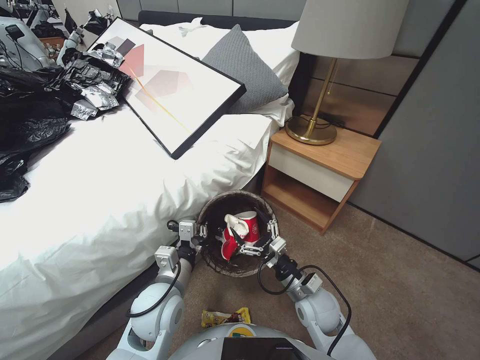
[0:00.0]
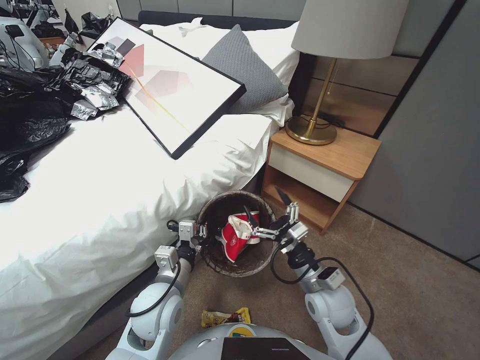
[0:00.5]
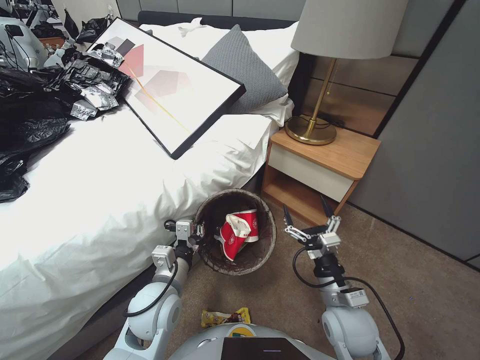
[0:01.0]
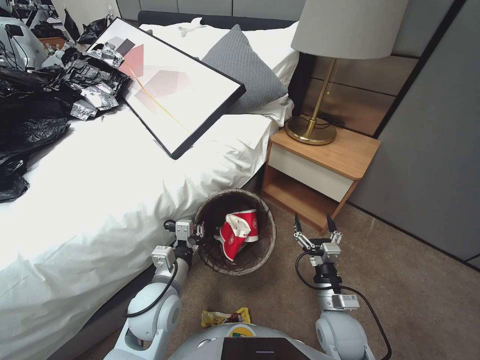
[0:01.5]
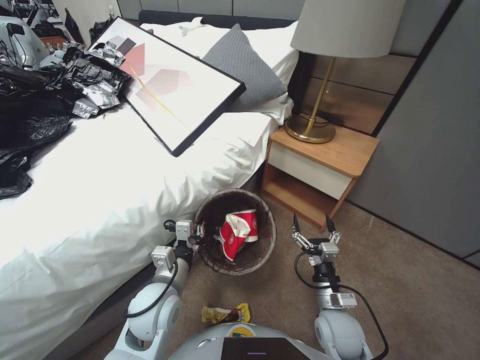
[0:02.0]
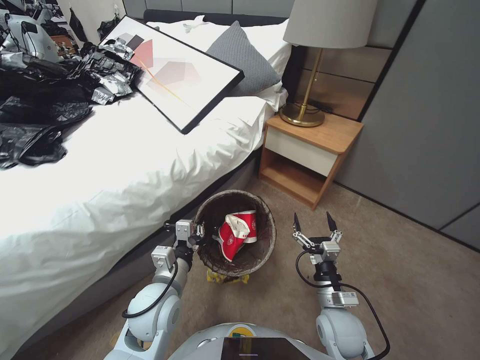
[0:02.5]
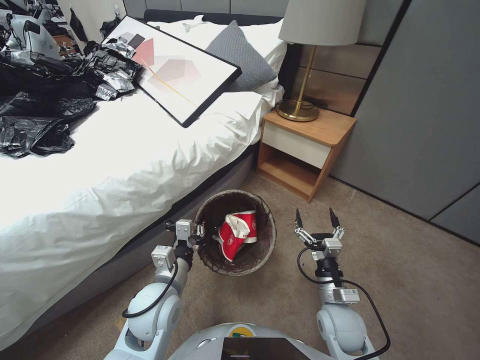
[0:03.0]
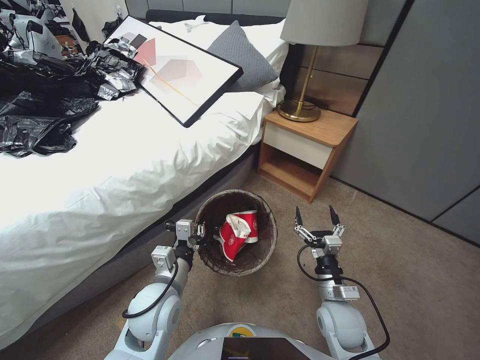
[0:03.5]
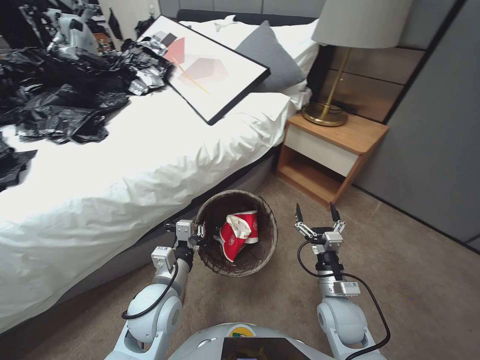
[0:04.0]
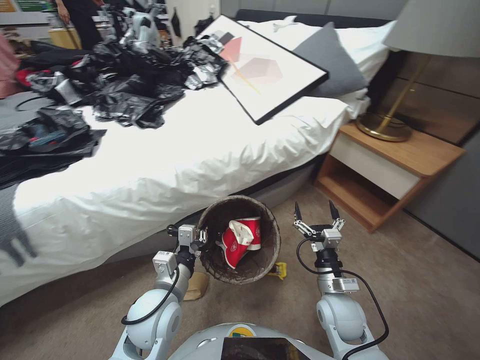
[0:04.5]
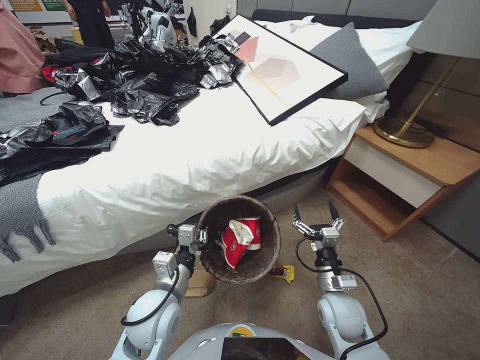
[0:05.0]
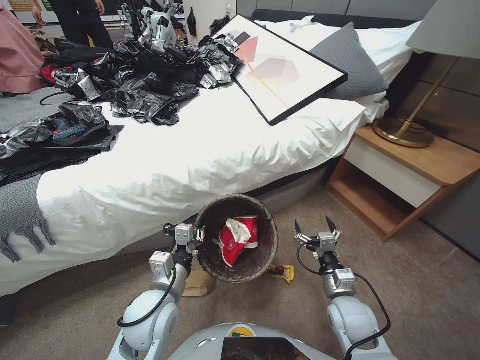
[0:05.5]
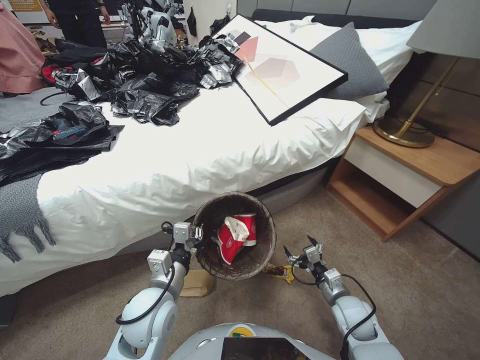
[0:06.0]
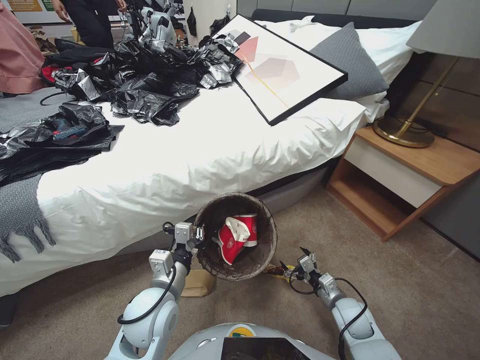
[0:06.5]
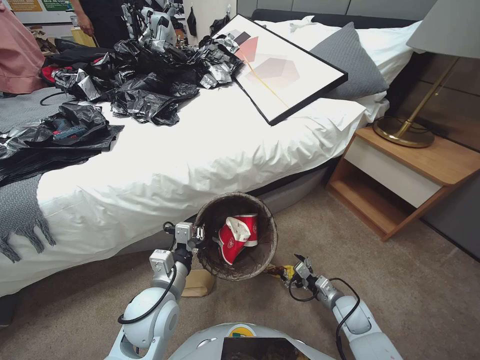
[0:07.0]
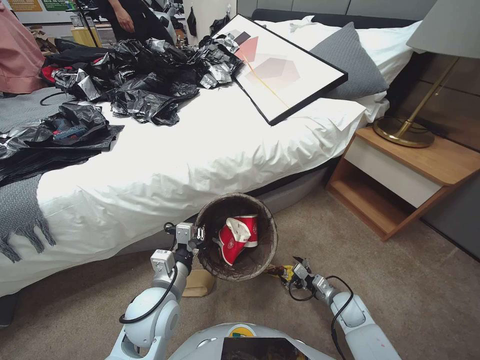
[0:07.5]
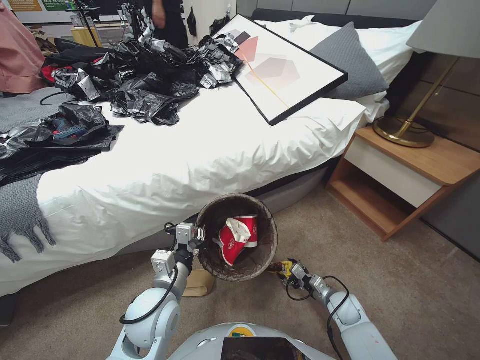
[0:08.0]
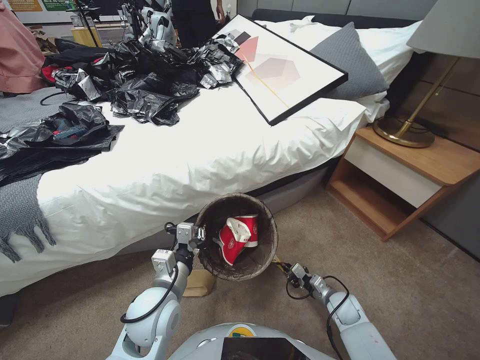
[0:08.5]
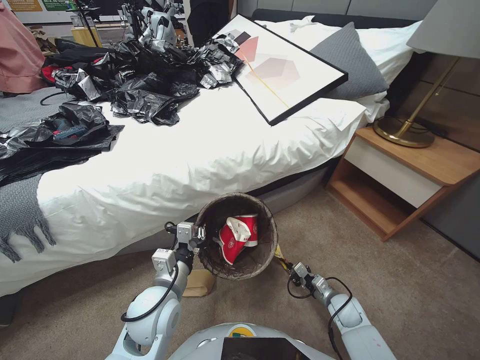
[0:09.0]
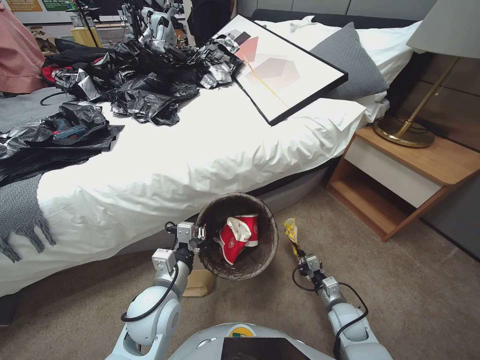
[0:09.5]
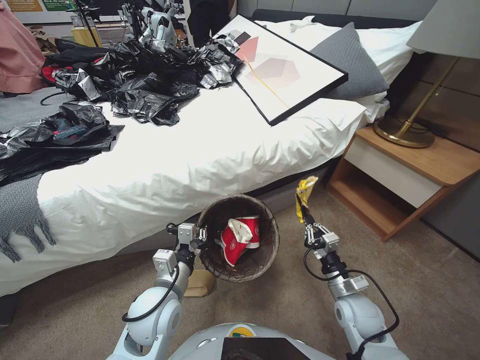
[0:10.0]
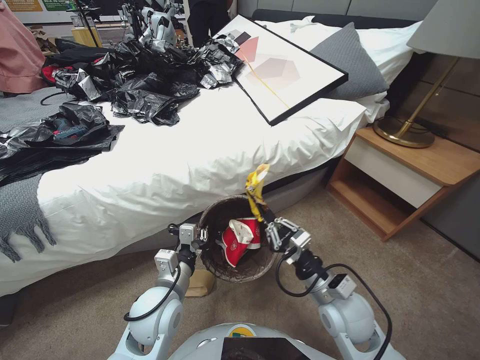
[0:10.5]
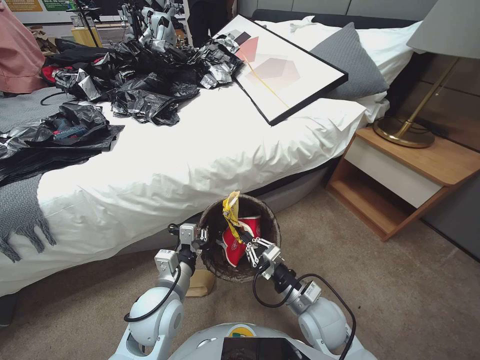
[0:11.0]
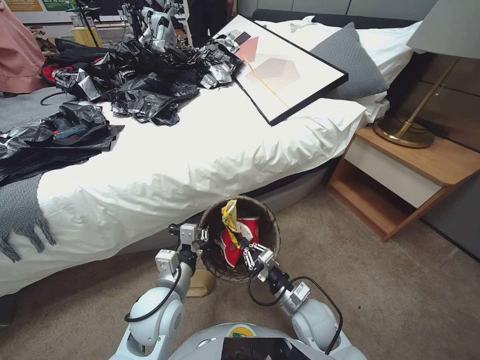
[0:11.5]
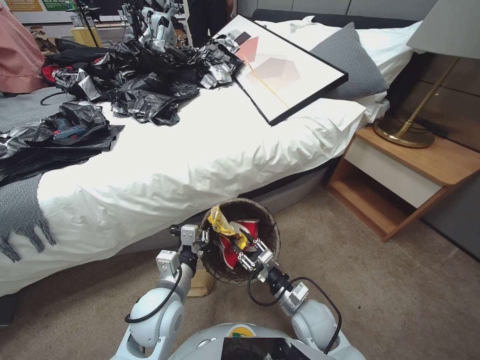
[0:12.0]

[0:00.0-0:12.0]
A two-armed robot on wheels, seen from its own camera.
Task of the whole recording: Pick up the trash bin, then pick up the garbage from the floor and place it into the trash bin.
0:00.0 to 0:02.0: The right gripper reaches roughly 5 cm upward, then returns.
0:04.0 to 0:06.0: The right gripper shifts by approximately 5 cm.
0:06.0 to 0:08.0: The right gripper heads downward and to the right, covering roughly 15 cm.
0:08.0 to 0:10.0: The right gripper travels upward by some 10 cm, and closes.
0:10.0 to 0:12.0: The right gripper heads to the left, covering approximately 10 cm.

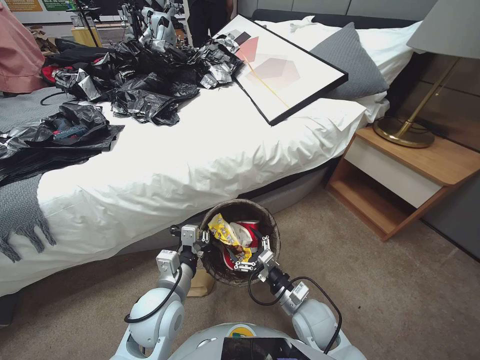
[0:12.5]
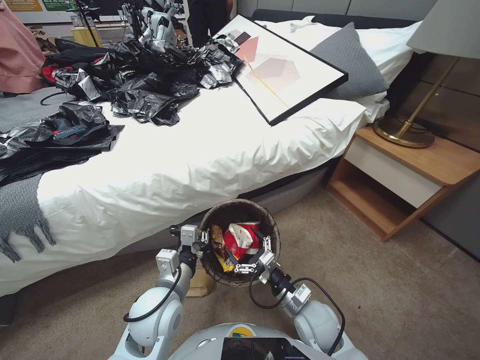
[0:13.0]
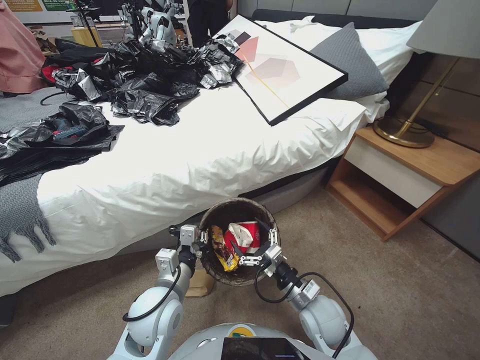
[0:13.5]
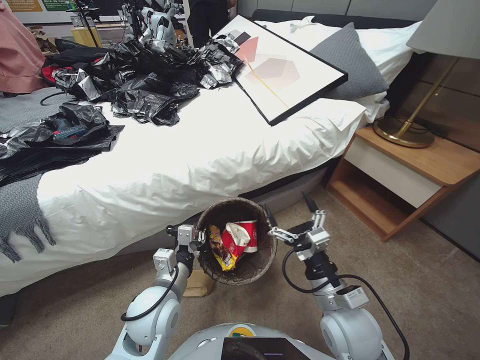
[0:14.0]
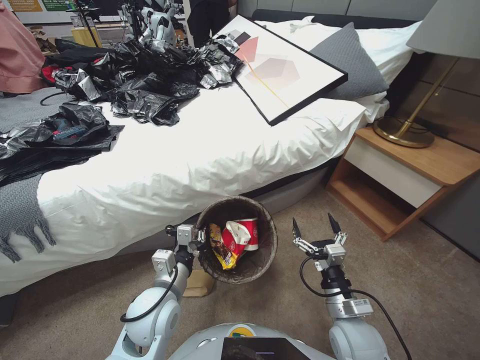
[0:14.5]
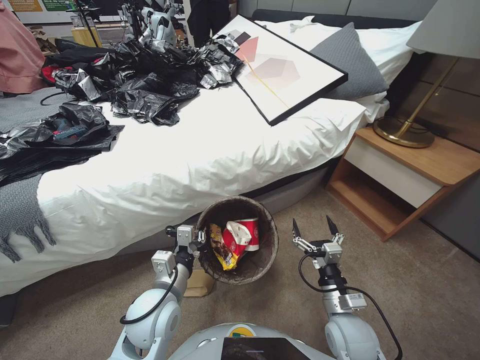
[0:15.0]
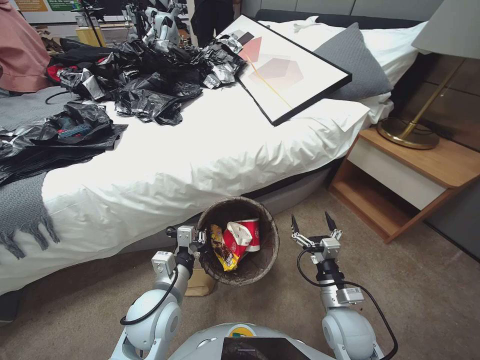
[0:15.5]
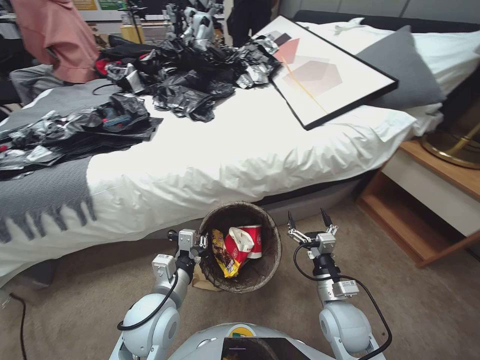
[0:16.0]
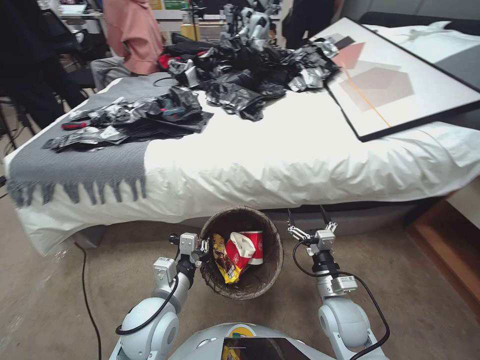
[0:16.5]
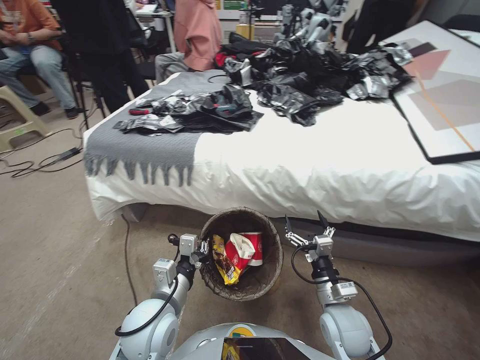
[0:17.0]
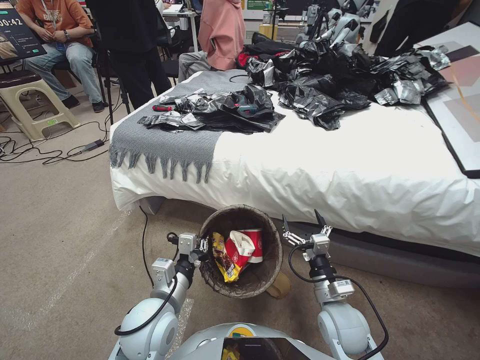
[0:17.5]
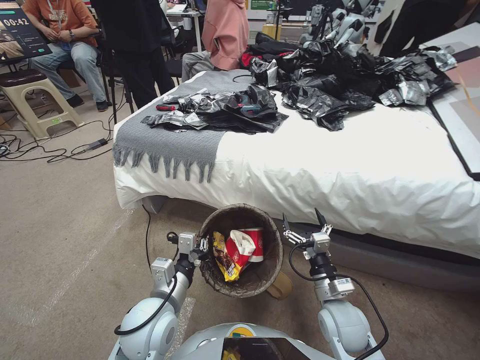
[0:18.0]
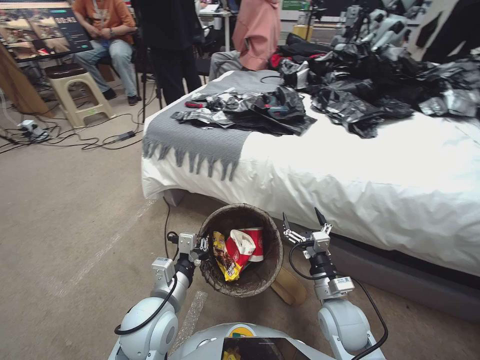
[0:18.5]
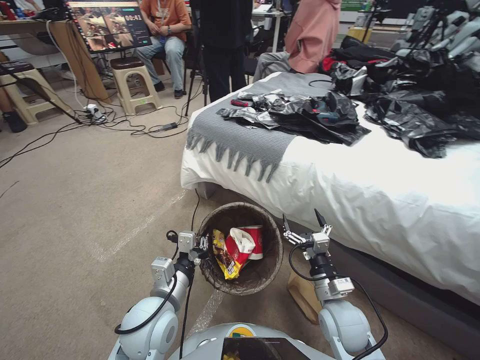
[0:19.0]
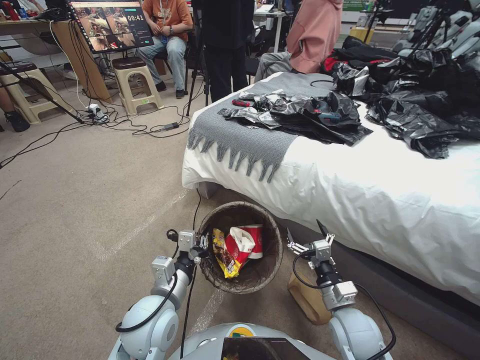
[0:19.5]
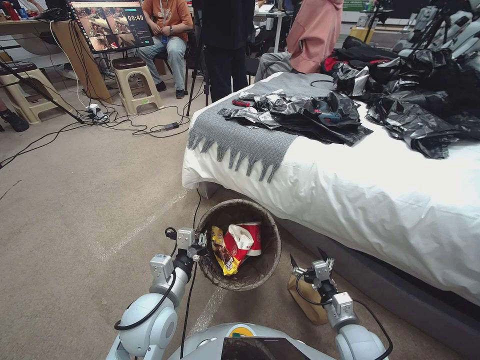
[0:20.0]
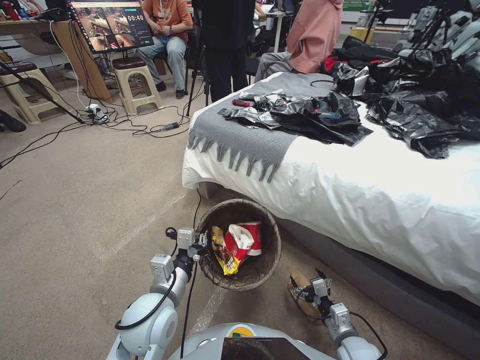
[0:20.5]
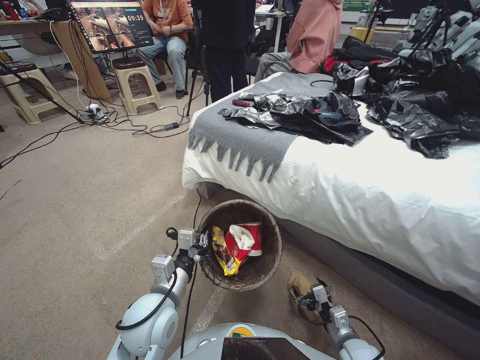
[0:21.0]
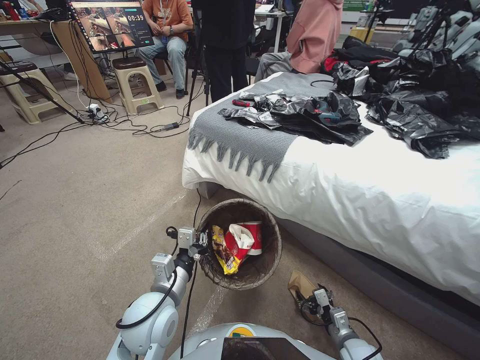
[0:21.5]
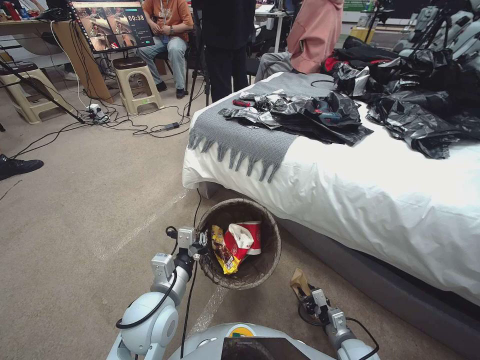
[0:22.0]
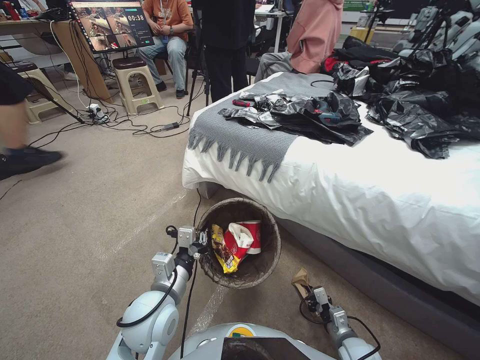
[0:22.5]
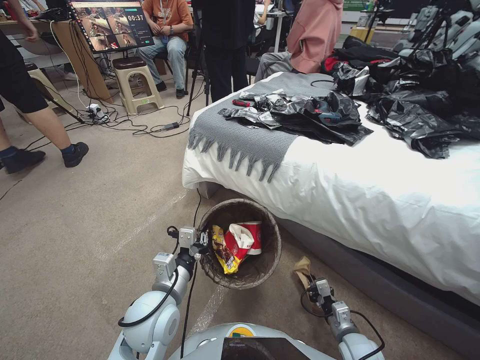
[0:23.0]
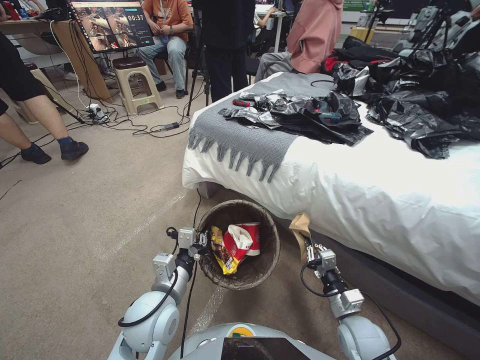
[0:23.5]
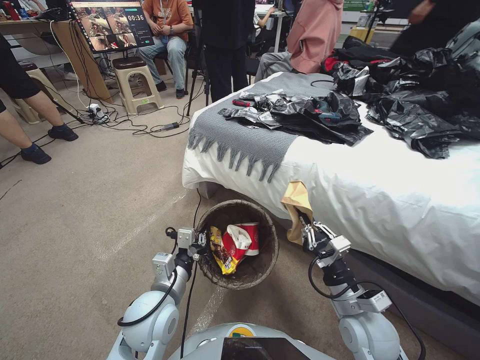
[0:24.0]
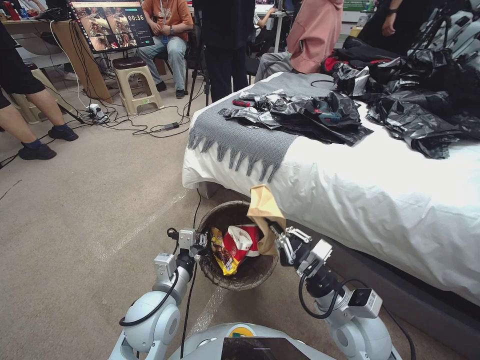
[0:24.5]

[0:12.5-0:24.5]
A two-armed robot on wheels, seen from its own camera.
Task of the whole recording: Pick up the trash bin, then pick up the garbage from the floor and place it into the trash bin.
0:12.5 to 0:14.5: The right gripper goes about 10 cm to the right and upward.
0:18.5 to 0:20.5: The right gripper goes approximately 15 cm downward, to the right and backward.
0:20.5 to 0:22.5: The right gripper travels downward by some 5 cm, and closes up.
0:22.5 to 0:24.5: The right gripper is displaced upward and to the left by about 25 cm.

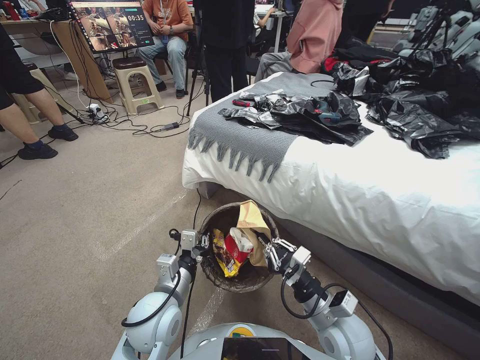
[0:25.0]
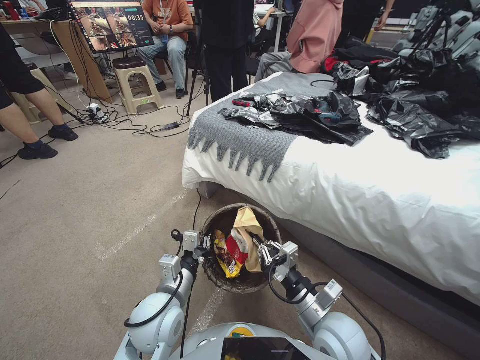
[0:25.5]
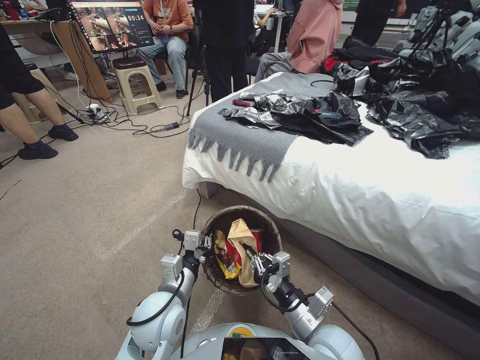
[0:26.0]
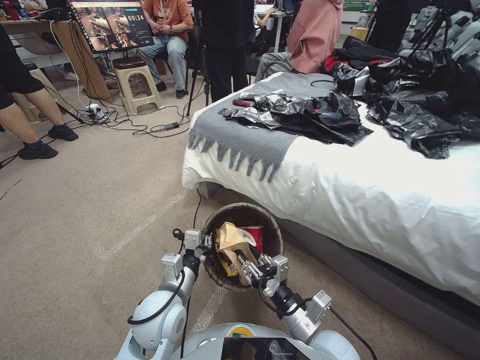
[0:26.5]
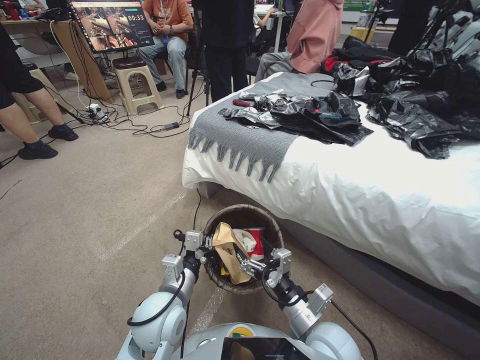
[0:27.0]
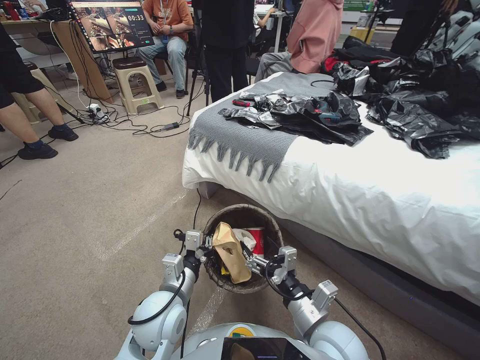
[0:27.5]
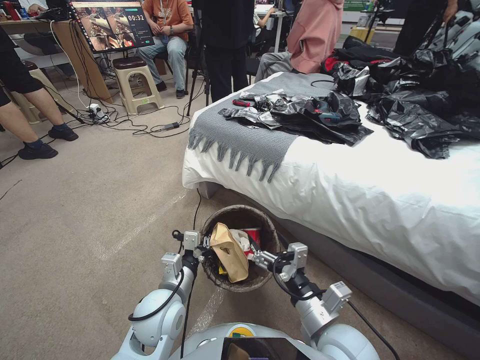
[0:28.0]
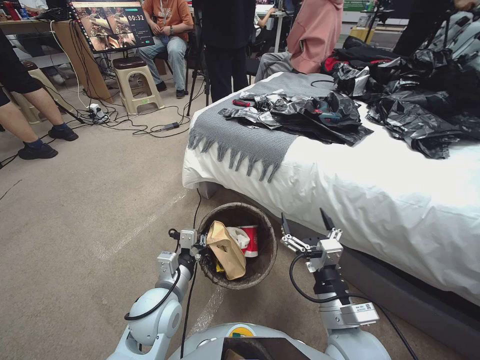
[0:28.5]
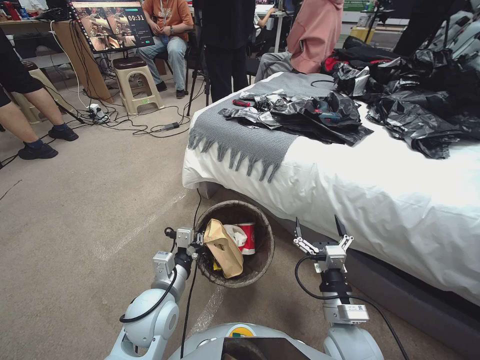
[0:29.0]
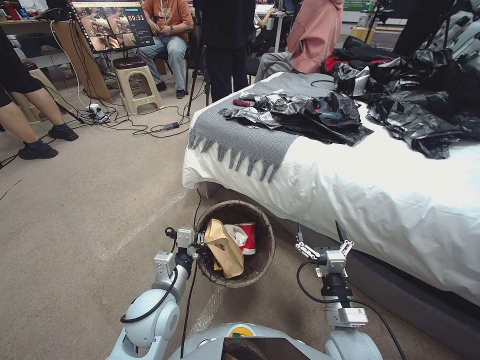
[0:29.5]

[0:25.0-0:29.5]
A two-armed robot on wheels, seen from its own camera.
Task of the whole recording: Pick up the trash bin, then pick up the garbage from the floor and place it into the trash bin.
0:25.0 to 0:27.0: The right gripper shifts about 5 cm to the left, and opens its fingers.
0:27.0 to 0:29.5: The right gripper is displaced to the right by approximately 5 cm.
